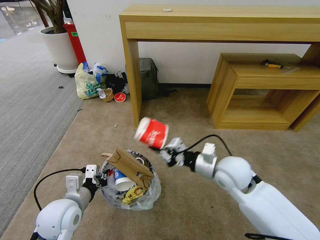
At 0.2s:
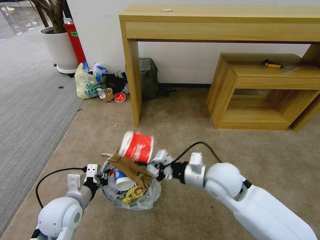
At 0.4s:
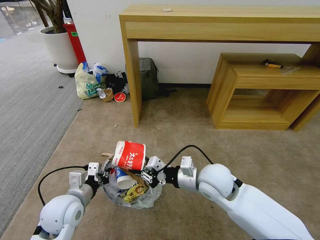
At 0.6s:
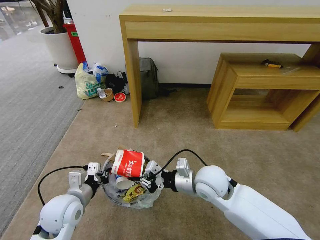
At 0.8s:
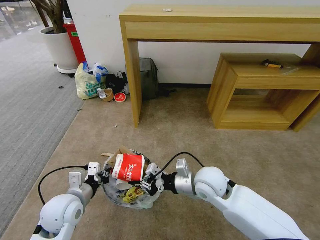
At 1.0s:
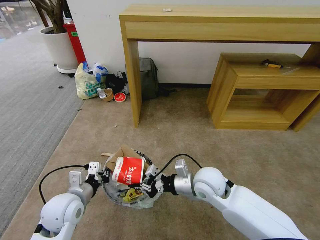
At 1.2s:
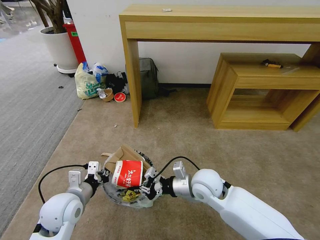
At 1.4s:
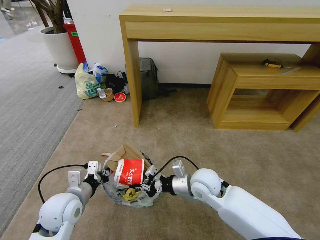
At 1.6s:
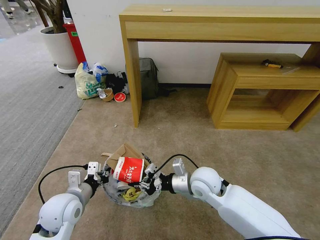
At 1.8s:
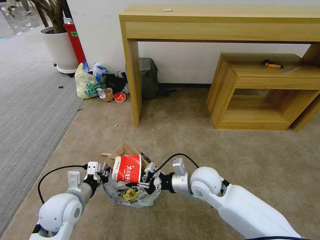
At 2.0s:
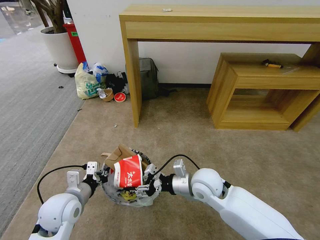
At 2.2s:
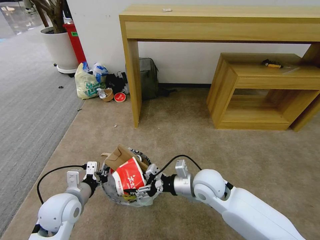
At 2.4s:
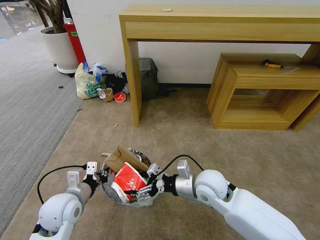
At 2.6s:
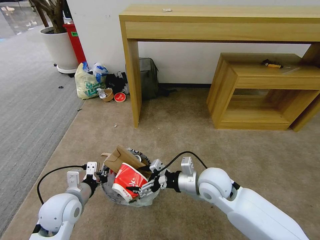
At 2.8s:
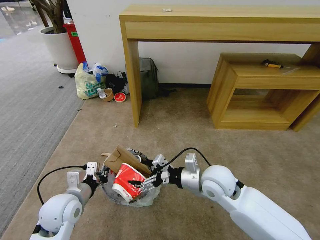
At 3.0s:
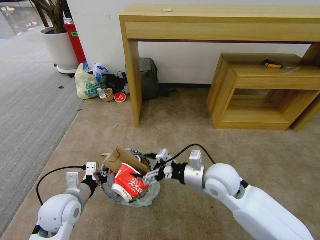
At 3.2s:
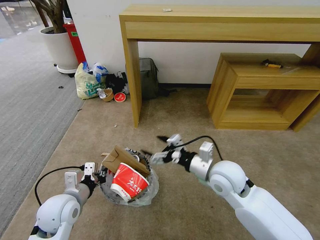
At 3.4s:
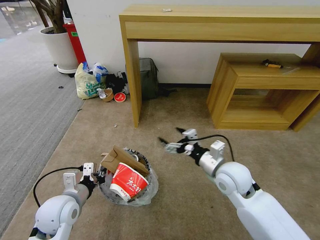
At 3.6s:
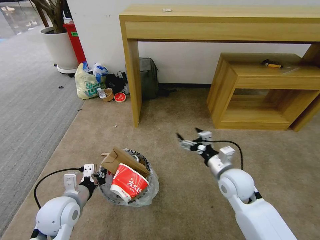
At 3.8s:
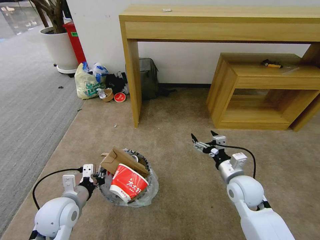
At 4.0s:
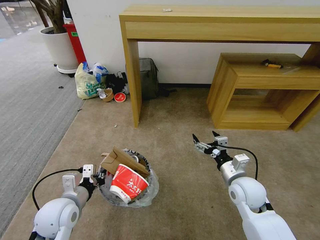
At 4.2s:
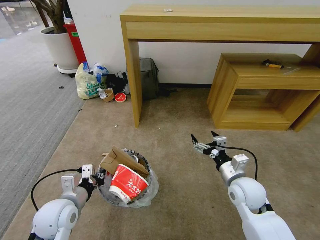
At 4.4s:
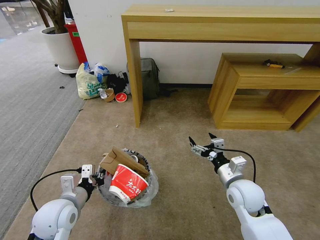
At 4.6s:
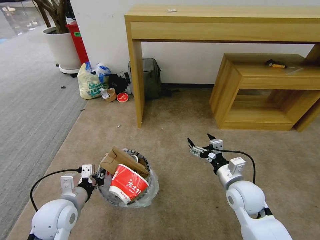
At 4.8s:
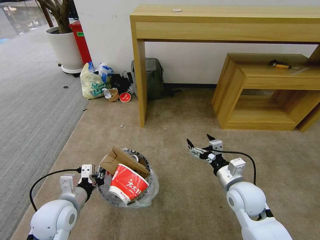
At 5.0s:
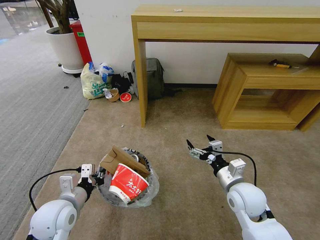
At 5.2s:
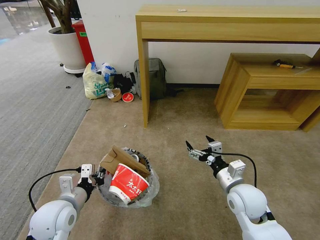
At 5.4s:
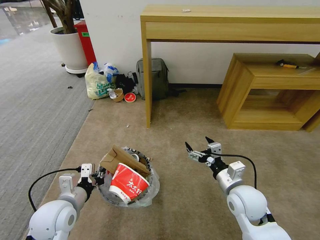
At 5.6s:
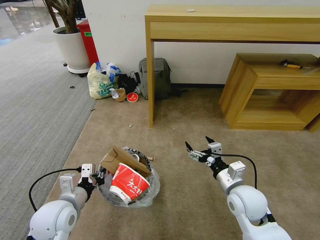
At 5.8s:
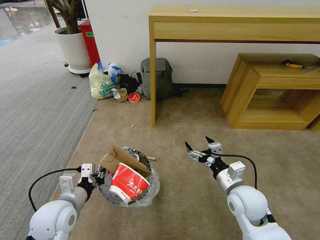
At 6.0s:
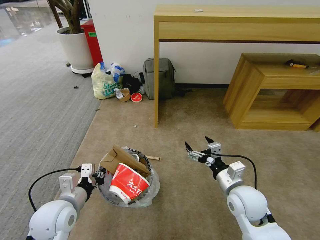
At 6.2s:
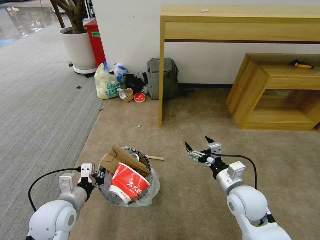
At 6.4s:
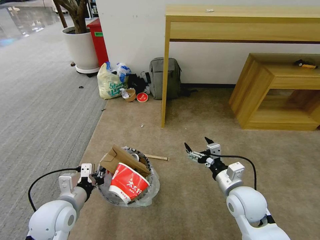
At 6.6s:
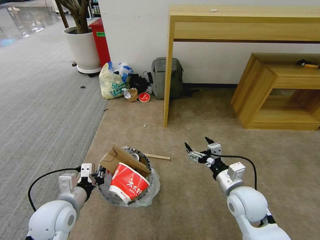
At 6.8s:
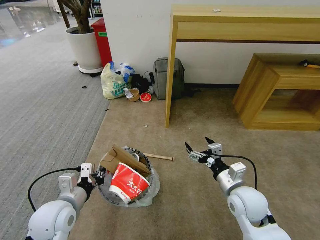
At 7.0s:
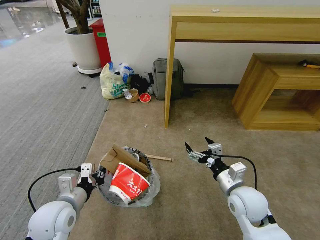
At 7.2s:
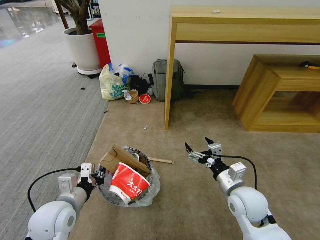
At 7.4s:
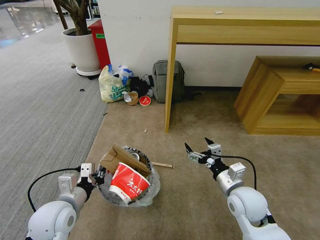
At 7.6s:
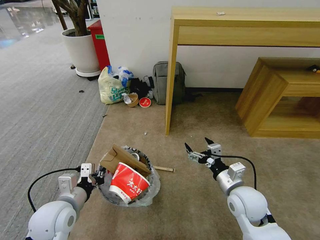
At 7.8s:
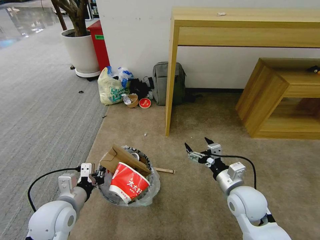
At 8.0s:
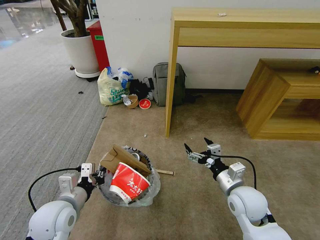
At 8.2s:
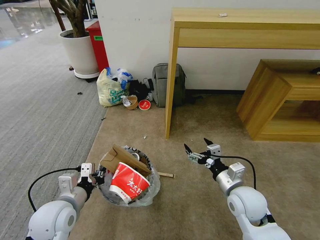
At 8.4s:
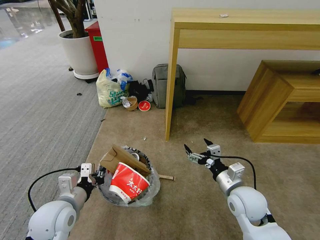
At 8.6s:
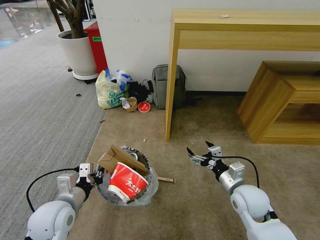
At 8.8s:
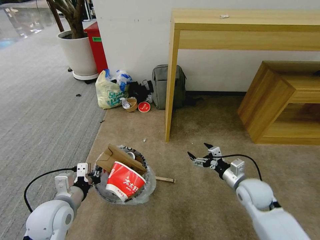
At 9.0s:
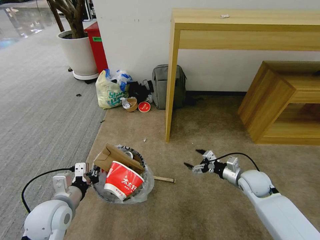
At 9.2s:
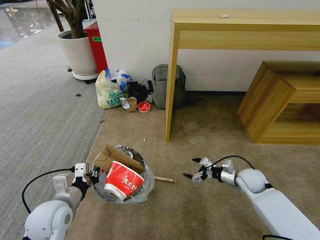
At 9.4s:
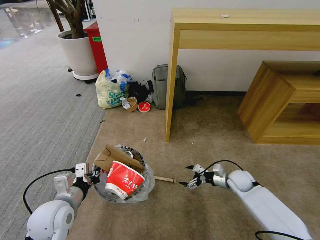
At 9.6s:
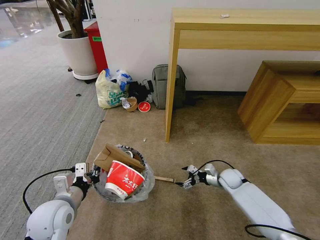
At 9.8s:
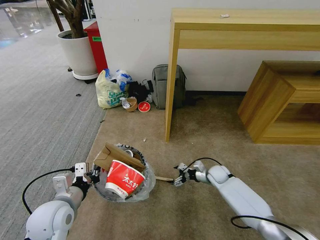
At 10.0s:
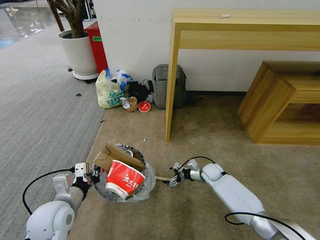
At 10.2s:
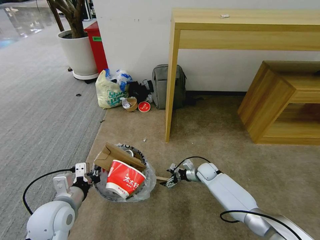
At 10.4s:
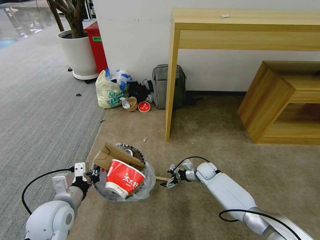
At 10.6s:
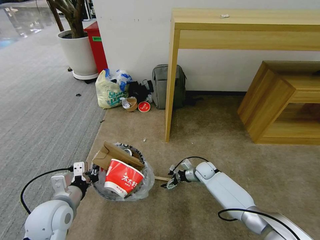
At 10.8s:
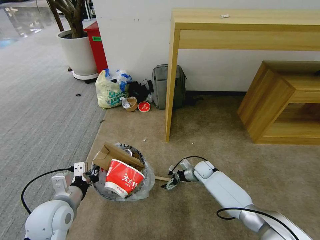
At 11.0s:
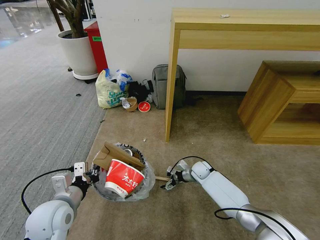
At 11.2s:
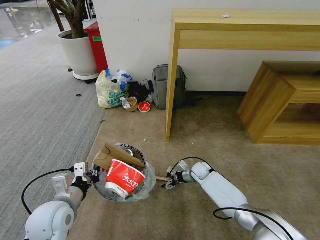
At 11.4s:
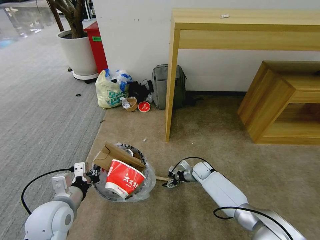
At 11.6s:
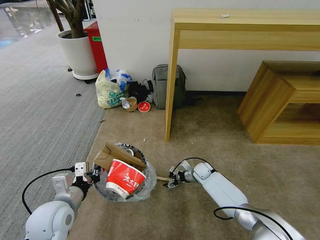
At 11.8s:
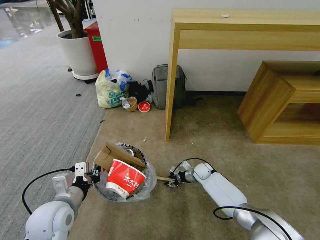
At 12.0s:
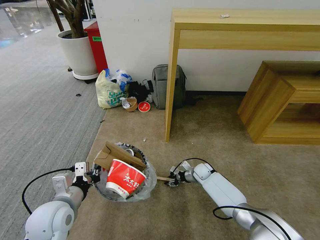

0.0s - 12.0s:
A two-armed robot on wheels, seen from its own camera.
Task of the whole recording: Pick up the trash bin and place the garbage on the floor into it.
0.0s - 1.6s: The right gripper is displaced to the left and downward by some 10 cm.
1.6s - 3.0s: The right gripper shifts roughly 5 cm upward, and opens its fingers.
3.0s - 4.4s: The right gripper shifts about 10 cm to the right and downward.
7.6s - 9.0s: The right gripper is displaced to the right, forward and downward by some 15 cm.
9.0s - 10.4s: The right gripper travels downward, forward and to the left by roughly 20 cm.
10.4s - 12.0s: The right gripper closes.

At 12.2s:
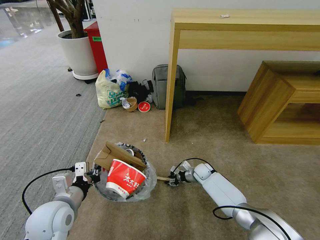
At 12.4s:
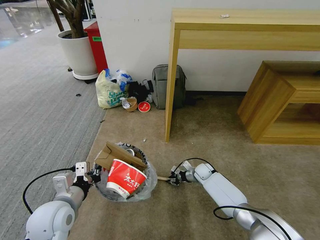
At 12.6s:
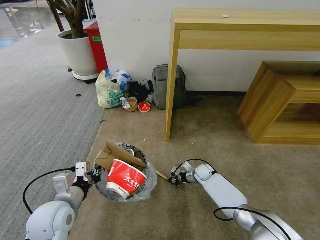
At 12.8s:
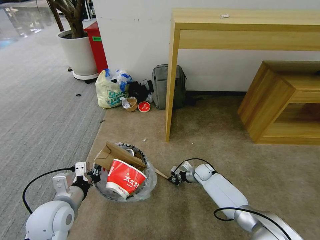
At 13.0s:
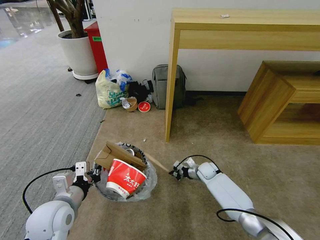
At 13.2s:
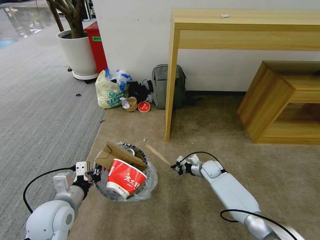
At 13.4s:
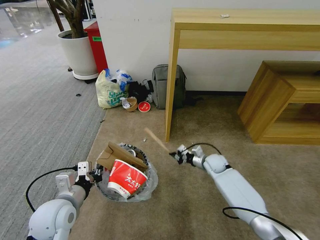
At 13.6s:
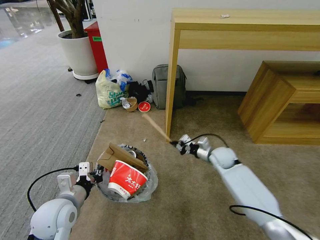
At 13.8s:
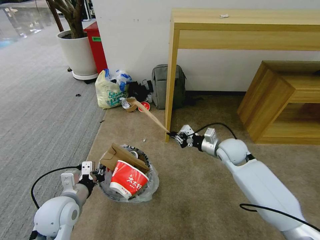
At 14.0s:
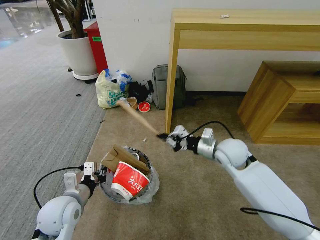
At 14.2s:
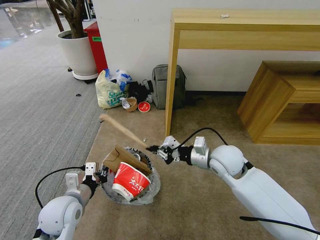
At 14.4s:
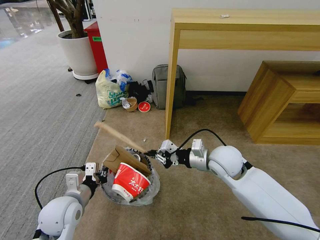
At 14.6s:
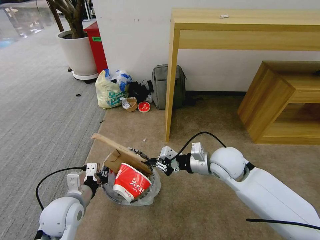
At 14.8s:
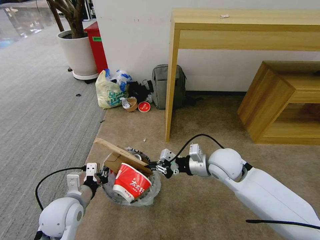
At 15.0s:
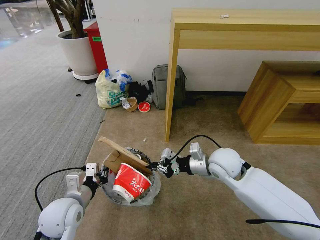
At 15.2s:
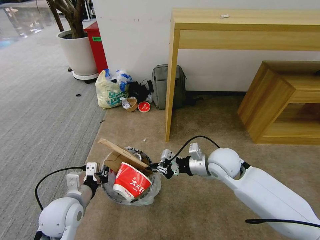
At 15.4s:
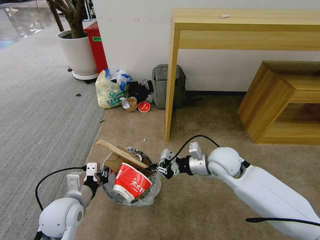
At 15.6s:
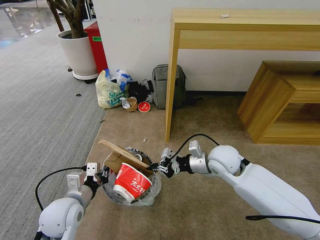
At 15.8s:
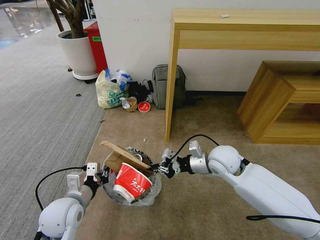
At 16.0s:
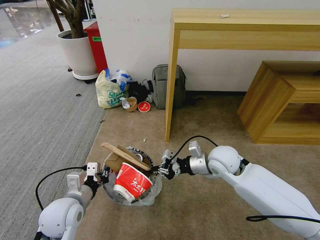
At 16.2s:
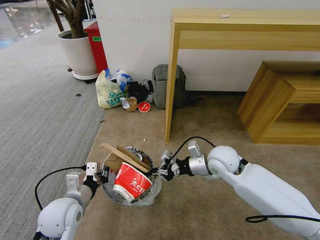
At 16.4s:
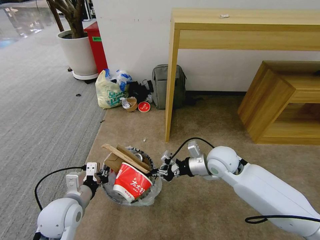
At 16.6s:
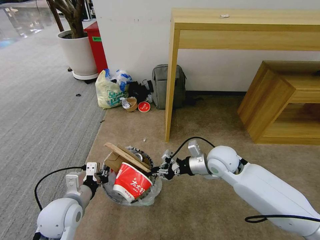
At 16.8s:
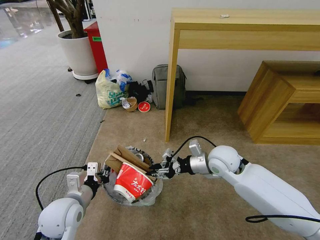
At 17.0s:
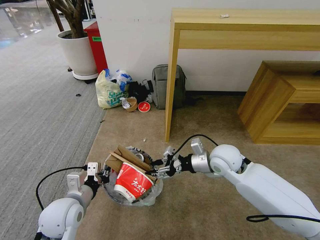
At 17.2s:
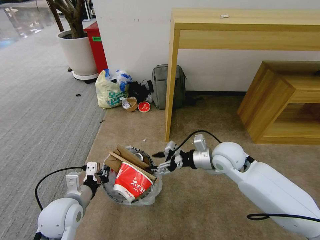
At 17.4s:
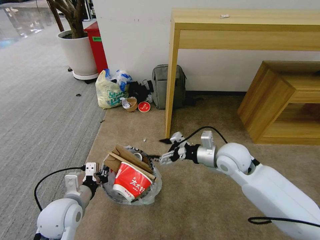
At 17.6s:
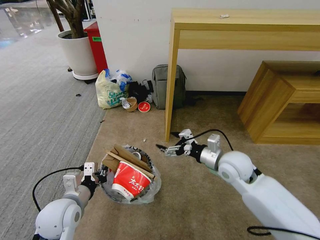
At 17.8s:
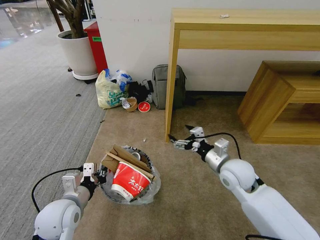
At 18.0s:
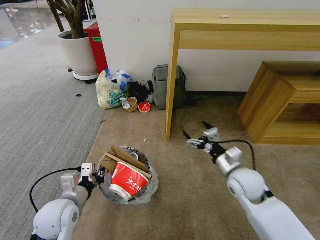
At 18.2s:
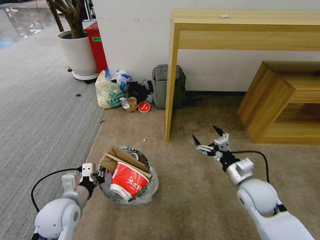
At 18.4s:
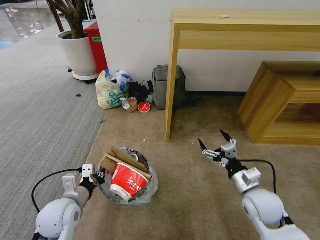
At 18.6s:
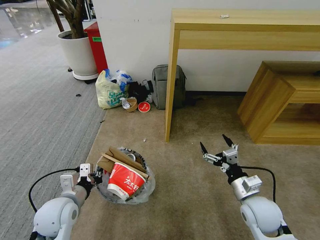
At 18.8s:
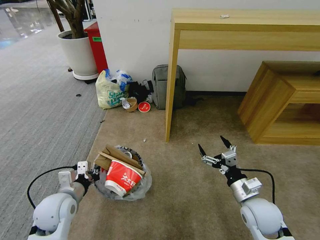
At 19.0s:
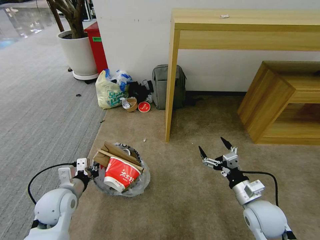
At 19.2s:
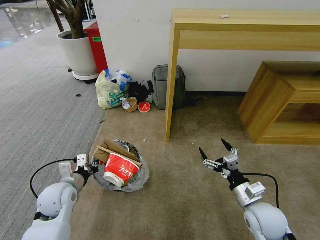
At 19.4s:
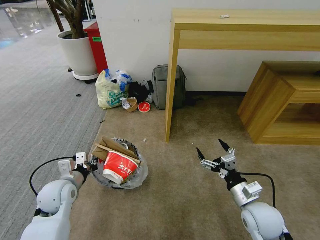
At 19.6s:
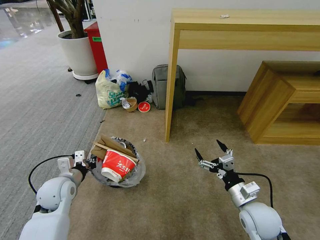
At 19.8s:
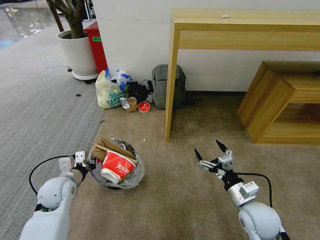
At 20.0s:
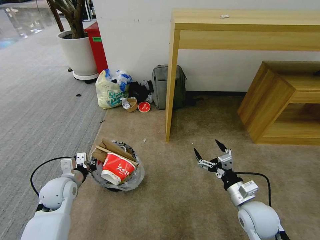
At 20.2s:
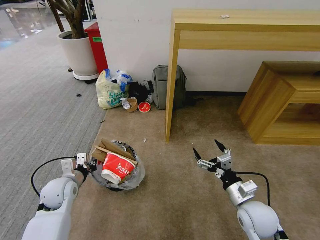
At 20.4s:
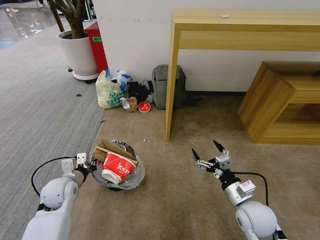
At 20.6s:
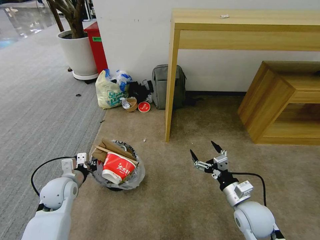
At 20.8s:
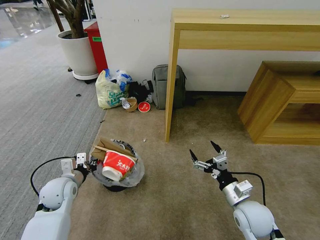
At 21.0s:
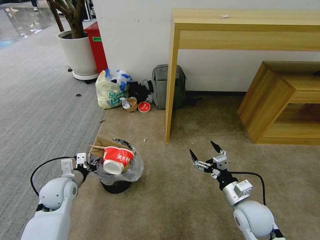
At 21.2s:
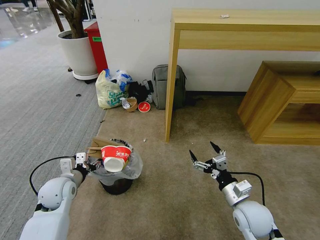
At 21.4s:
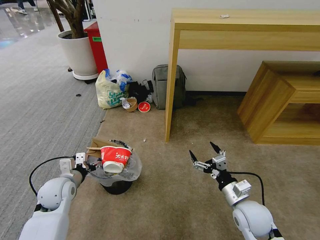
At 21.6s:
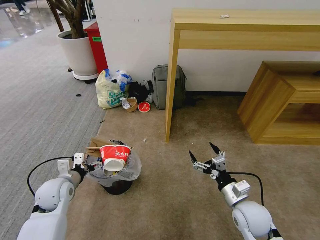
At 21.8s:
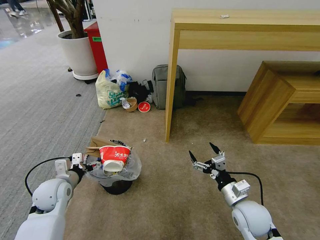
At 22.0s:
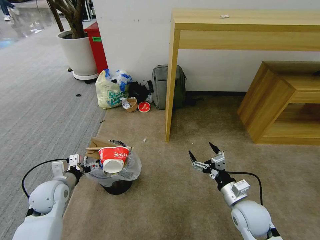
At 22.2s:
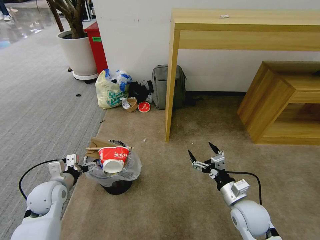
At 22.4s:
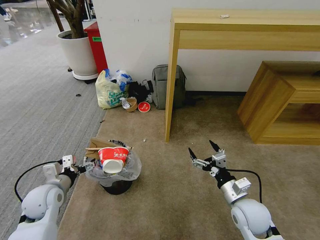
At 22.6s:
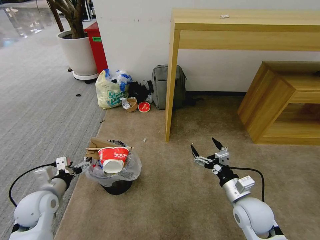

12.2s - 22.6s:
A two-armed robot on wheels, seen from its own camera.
Task of the whole recording: Pick up the trash bin and place the garbage on the floor into it.
12.2s - 13.6s: The right gripper travels upward by about 15 cm, and closes its fingers.
13.6s - 15.2s: The right gripper heads upward, backward and to the left, covering some 15 cm.
15.2s - 16.6s: The grippers make only small movements.
16.6s - 18.2s: The right gripper travels backward and to the right by roughly 15 cm, and opens.
18.2s - 19.6s: The left gripper moves forward, about 5 cm. The right gripper moves backward, some 5 cm.
19.6s - 21.2s: The left gripper opens its fingers.
21.2s - 22.6s: The left gripper shifts by some 5 cm, and opens up.
